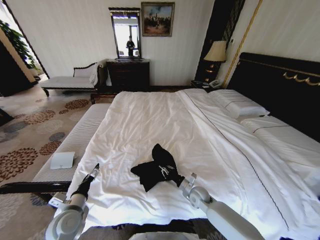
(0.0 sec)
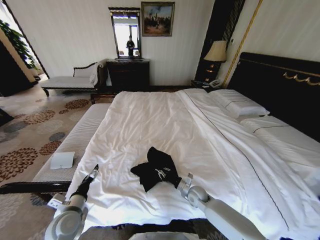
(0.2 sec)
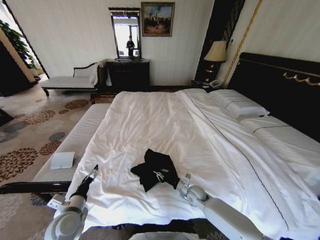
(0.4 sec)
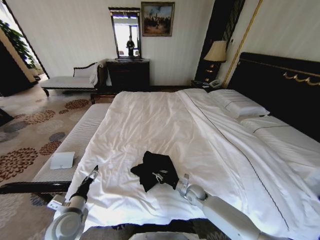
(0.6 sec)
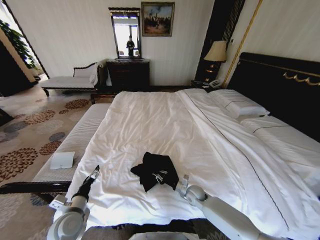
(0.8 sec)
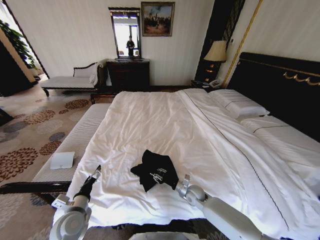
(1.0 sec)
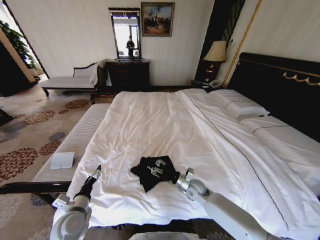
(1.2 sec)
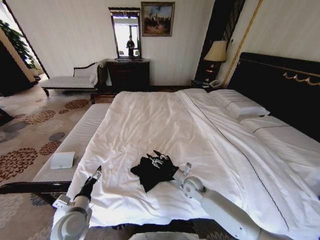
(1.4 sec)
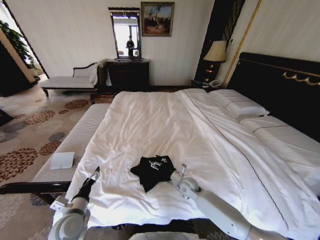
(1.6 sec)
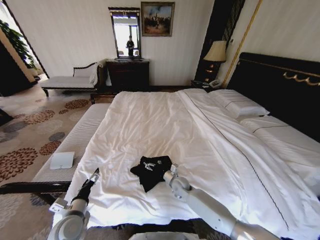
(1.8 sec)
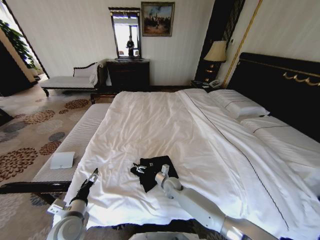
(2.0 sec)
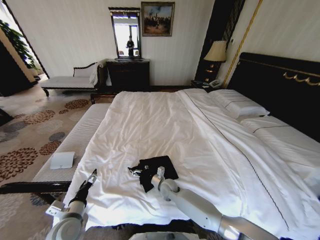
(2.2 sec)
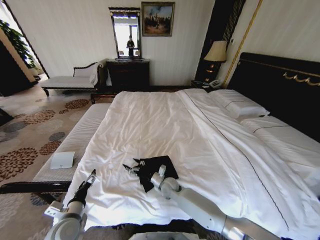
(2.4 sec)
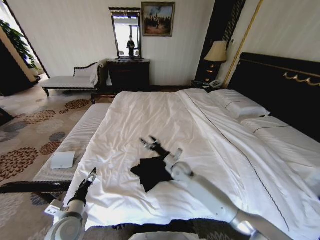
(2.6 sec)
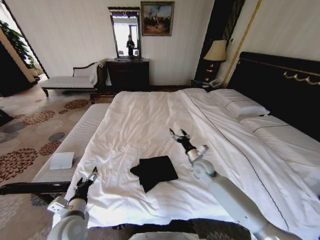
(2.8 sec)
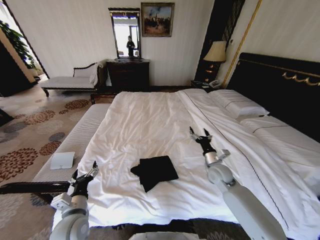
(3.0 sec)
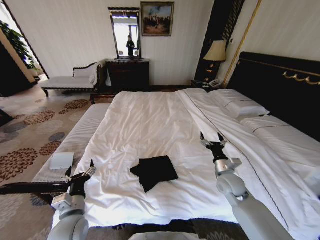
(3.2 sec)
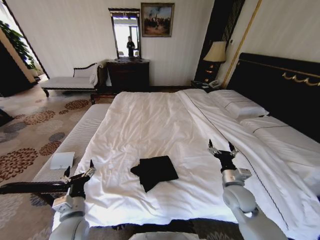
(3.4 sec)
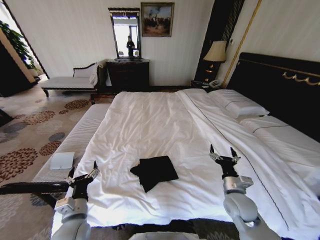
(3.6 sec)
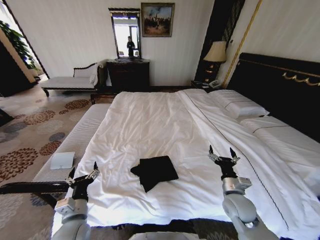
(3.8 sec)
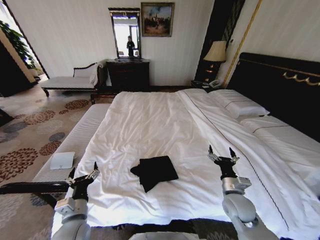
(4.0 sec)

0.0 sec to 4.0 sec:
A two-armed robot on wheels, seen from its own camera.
Task of the whole recording: Fold the clothes on the bed.
0.0 sec to 1.4 sec: The right gripper ends up approximately 5 cm from where it was, and opens up.
1.4 sec to 2.6 sec: The right gripper travels forward by some 5 cm, and reaches approximately 10 cm to the left, then returns.
2.6 sec to 4.0 sec: The left gripper moves some 5 cm. The right gripper travels backward and to the right by approximately 25 cm.
